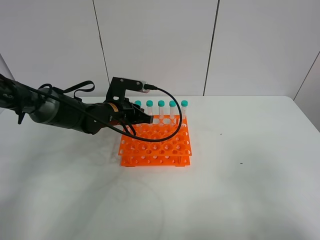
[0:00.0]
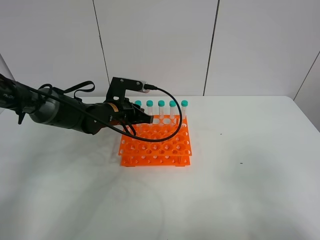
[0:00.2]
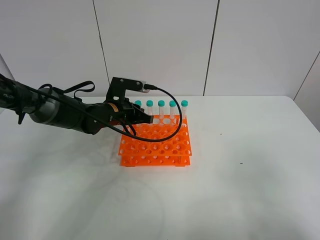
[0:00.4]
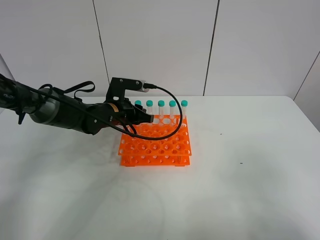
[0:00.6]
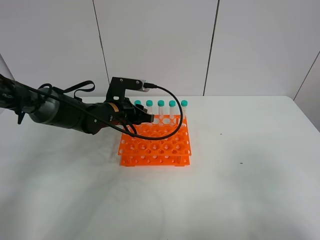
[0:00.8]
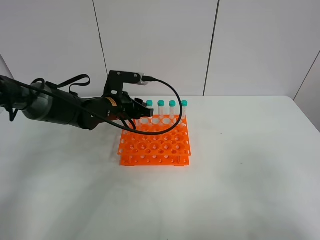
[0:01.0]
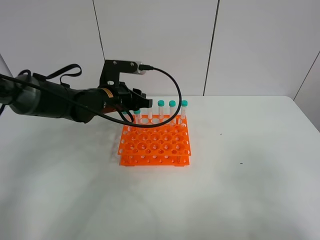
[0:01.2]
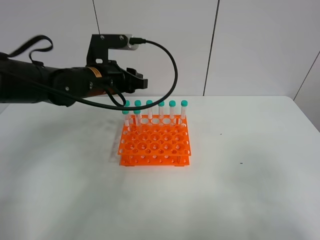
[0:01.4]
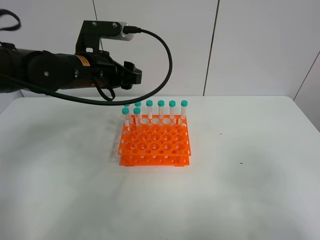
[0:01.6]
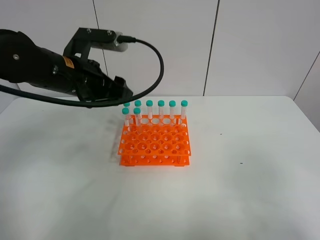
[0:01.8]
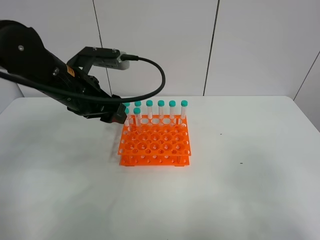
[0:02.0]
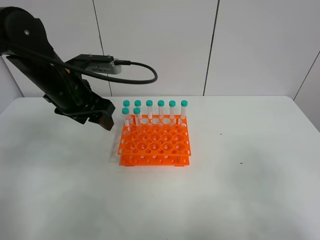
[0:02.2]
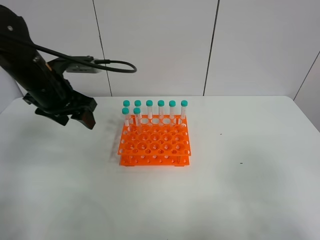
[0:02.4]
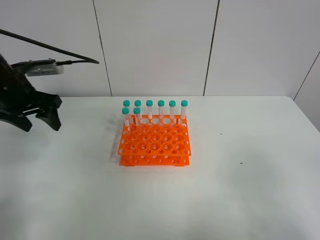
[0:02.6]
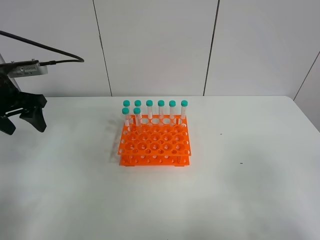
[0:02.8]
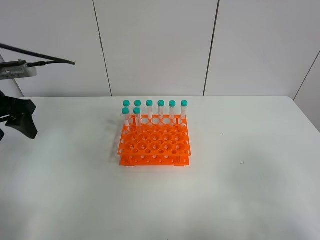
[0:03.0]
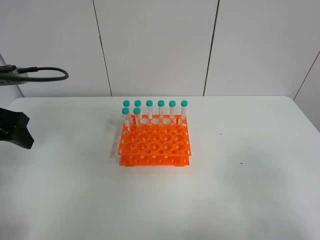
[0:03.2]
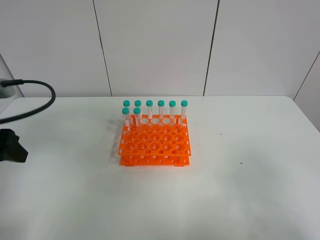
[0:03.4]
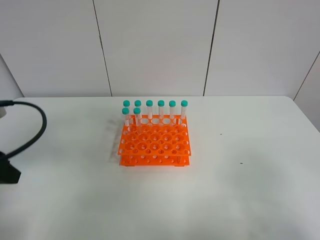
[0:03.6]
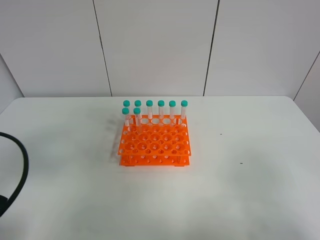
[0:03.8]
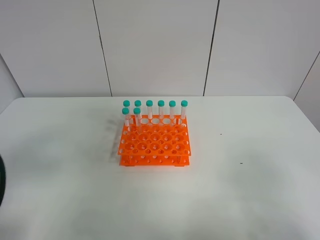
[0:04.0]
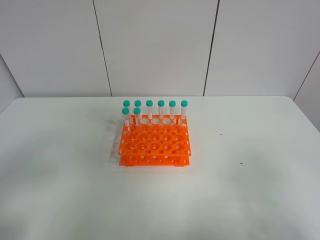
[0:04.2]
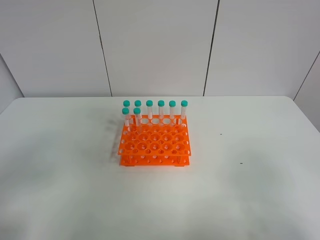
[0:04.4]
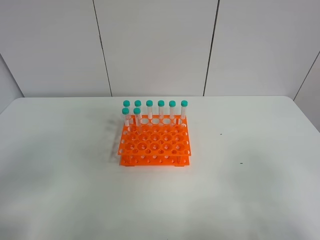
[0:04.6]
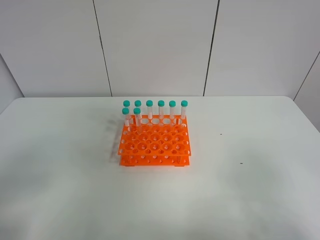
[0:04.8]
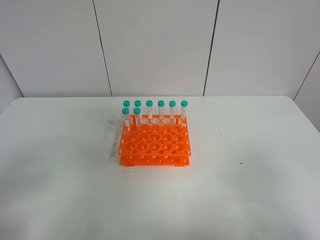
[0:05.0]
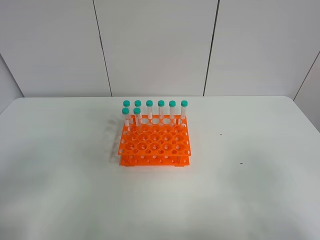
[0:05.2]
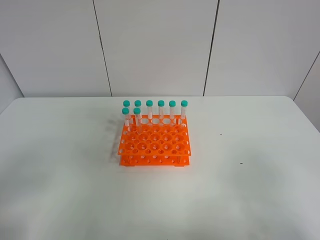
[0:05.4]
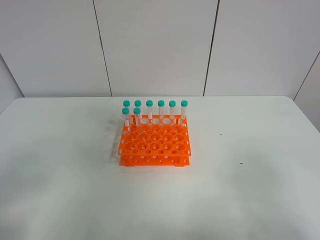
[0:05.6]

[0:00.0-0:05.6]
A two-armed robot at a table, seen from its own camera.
Task of the whole recording: Put the test tube on the table back onto the test tube rack.
0.0 to 1.4 s: The left gripper heads upward, covering some 10 cm, and opens its fingers.
1.4 to 2.8 s: The left gripper is displaced to the left by about 20 cm, and opens its fingers.
2.8 to 4.2 s: The left gripper heads backward, covering some 25 cm.

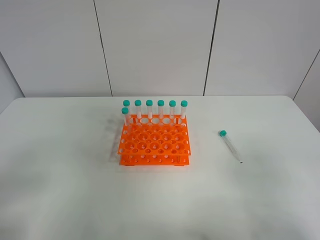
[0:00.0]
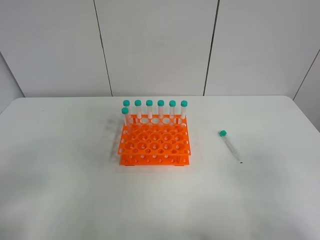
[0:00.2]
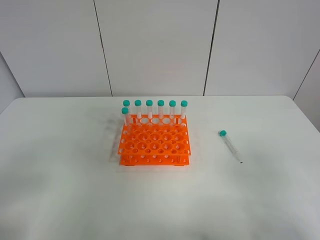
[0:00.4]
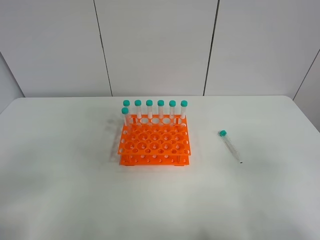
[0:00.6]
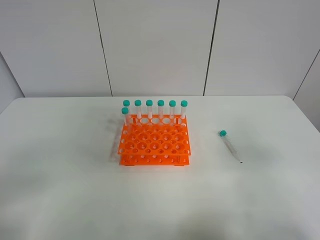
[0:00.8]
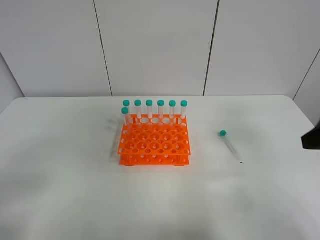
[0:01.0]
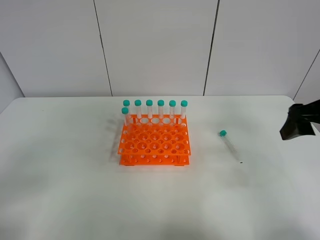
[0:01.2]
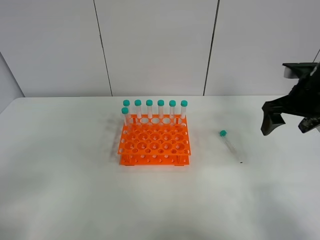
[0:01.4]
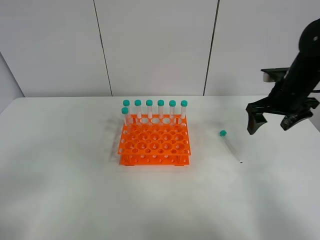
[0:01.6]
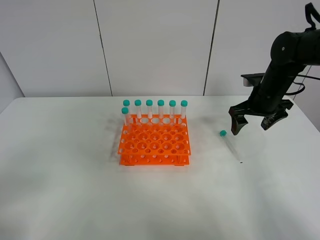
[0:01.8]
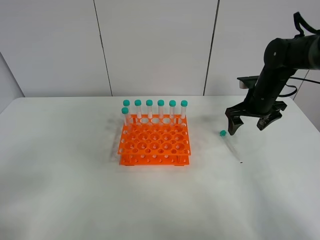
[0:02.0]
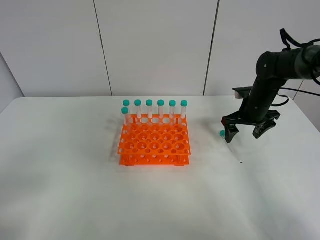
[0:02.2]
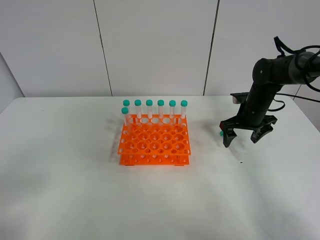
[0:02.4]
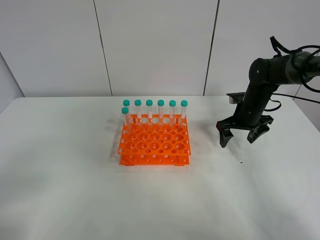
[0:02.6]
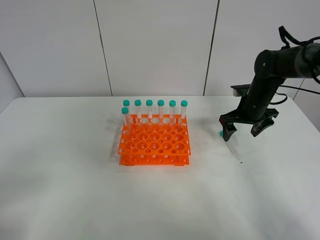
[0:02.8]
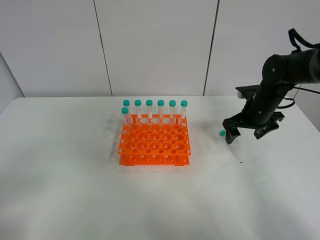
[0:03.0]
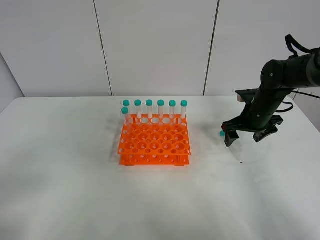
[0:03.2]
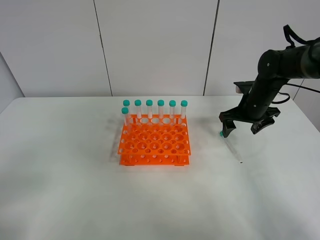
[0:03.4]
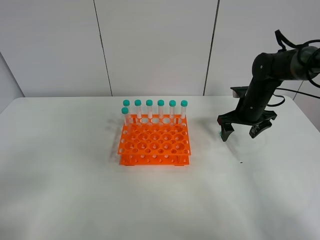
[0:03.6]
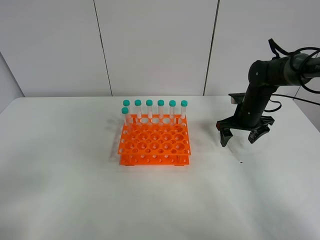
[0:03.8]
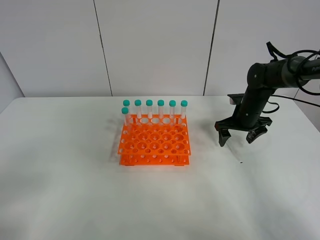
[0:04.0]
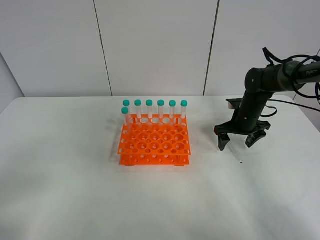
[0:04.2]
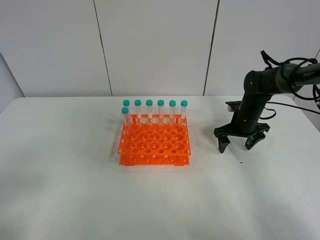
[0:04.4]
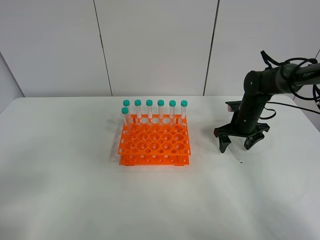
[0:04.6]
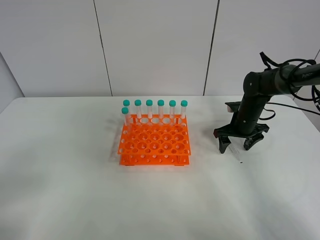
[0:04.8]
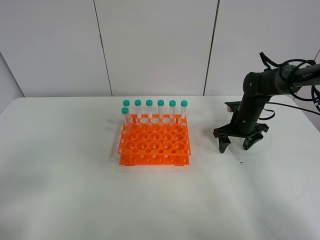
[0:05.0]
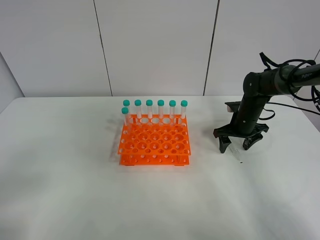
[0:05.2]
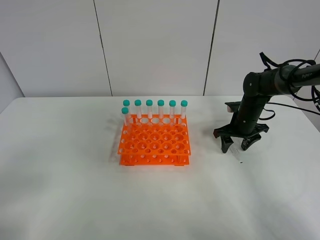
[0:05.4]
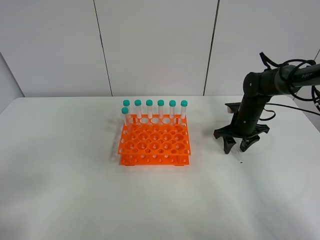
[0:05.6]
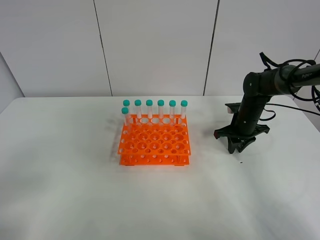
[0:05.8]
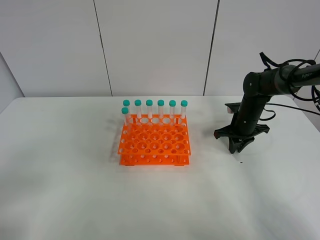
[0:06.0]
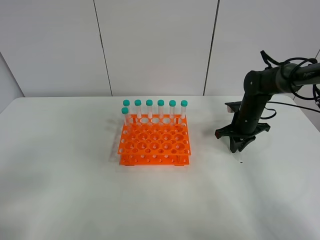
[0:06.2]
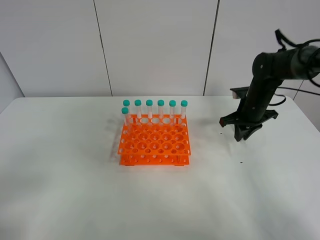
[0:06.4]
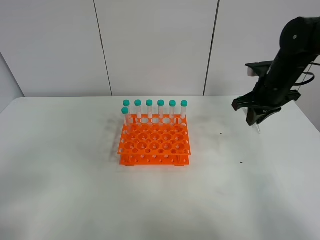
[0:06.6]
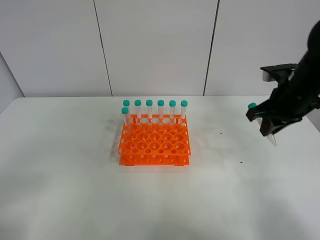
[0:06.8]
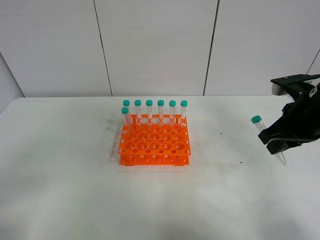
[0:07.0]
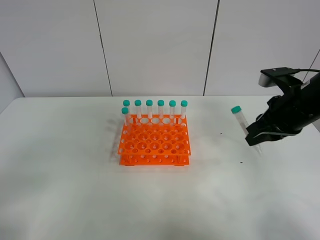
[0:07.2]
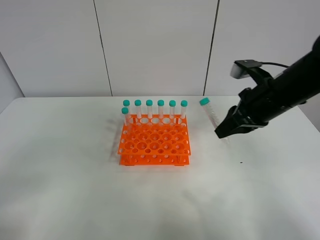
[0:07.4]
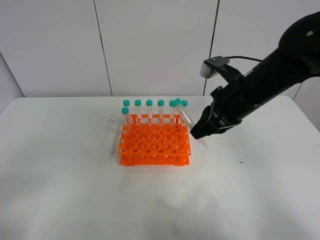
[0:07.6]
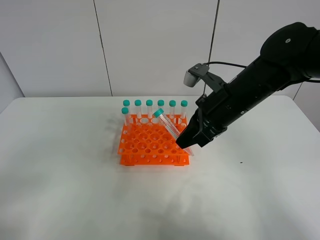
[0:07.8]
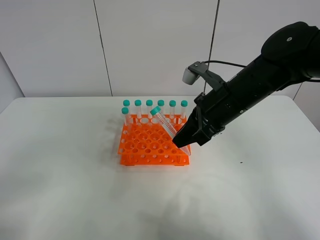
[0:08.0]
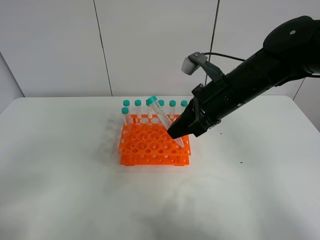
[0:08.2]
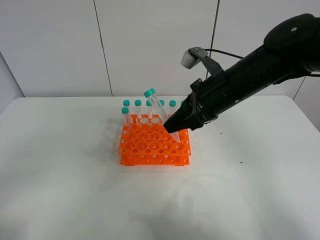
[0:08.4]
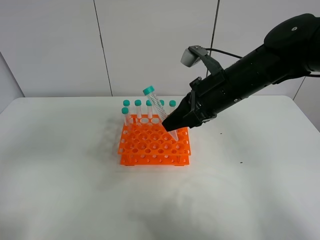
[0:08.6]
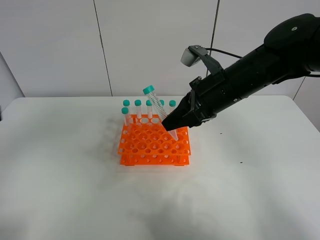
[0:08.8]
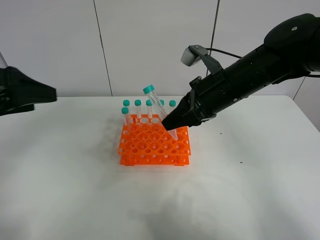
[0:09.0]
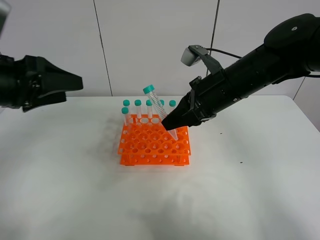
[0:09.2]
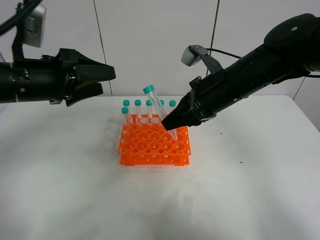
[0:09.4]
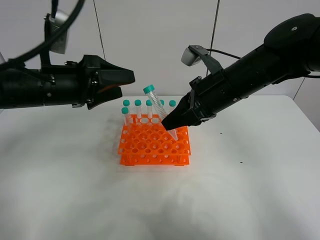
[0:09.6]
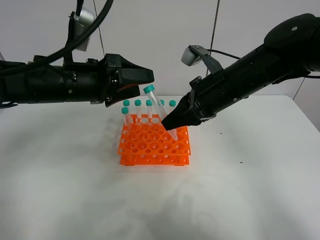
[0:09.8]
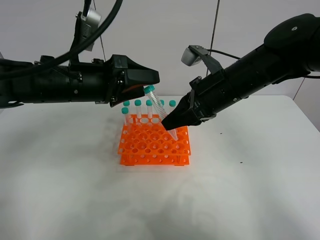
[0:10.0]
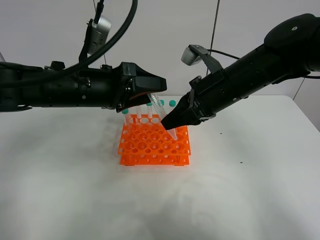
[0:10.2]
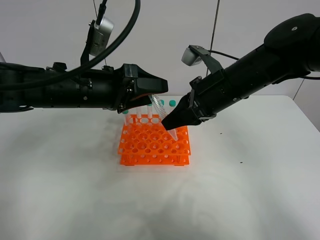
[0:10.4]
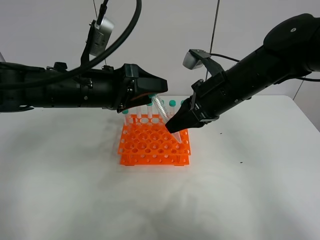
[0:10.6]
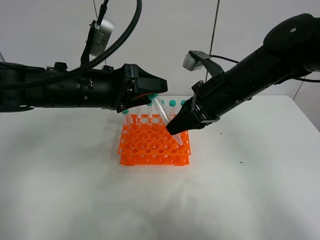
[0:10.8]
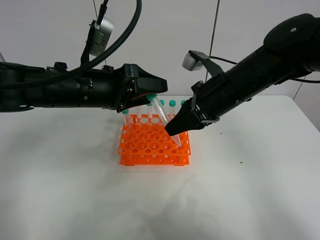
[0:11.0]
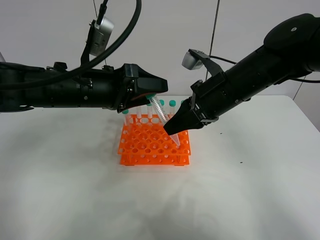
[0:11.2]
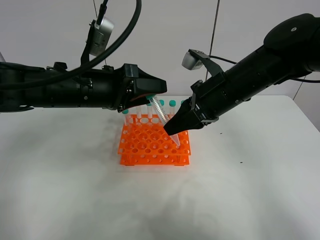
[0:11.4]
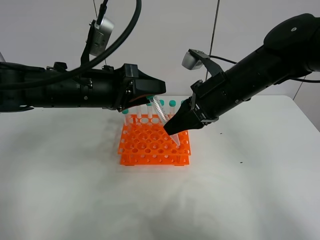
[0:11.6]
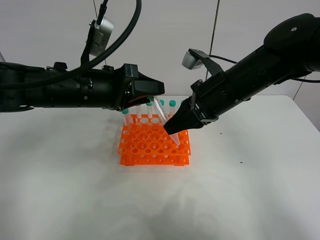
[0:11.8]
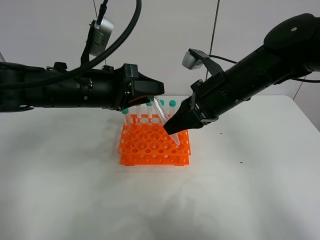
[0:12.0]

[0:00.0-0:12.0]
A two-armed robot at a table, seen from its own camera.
Task of the whole recording: Put the test tube on the table back onto the test tube rack.
Step, 0.0 to 5.8 s: Pick up the test tube with the right gripper.
0.0 to 1.6 s: The right gripper shifts roughly 35 cm forward.
1.6 to 3.0 s: The right gripper shifts about 5 cm downward.
3.0 to 4.4 s: The right gripper is displaced downward by roughly 5 cm.
4.4 to 6.0 s: The right gripper closes up.
6.0 to 7.6 s: The right gripper goes some 25 cm upward, backward and to the left.
7.6 to 9.0 s: The left gripper heads forward, covering some 20 cm.
9.0 to 10.4 s: The left gripper is displaced to the right, forward and downward by roughly 20 cm.
10.4 to 12.0 s: The left gripper closes up.

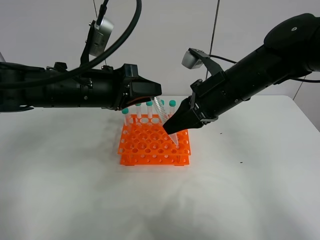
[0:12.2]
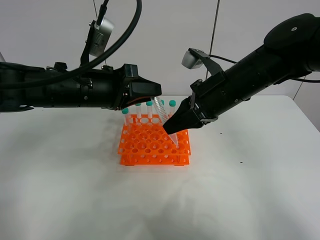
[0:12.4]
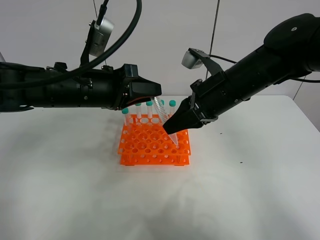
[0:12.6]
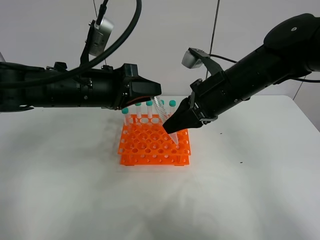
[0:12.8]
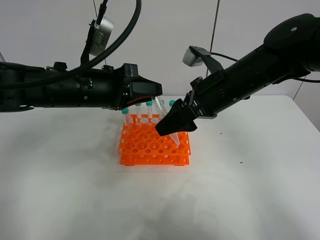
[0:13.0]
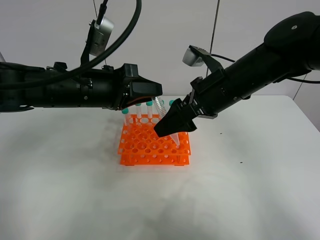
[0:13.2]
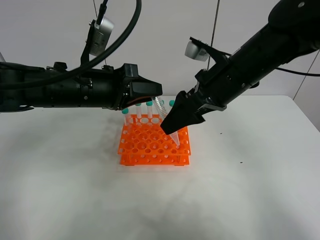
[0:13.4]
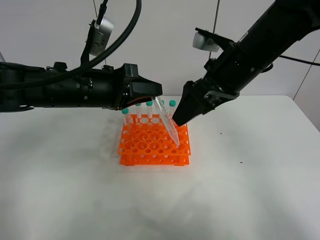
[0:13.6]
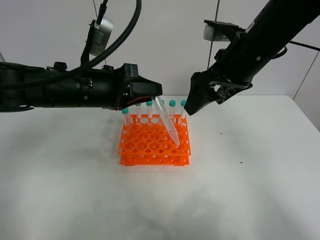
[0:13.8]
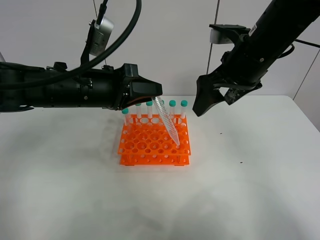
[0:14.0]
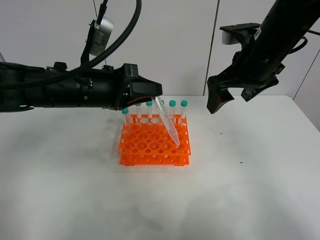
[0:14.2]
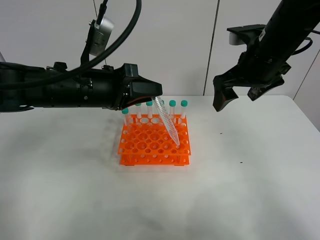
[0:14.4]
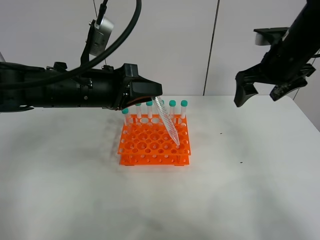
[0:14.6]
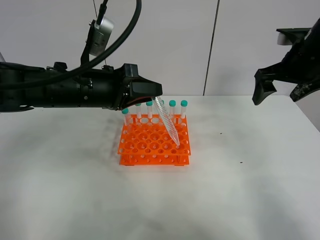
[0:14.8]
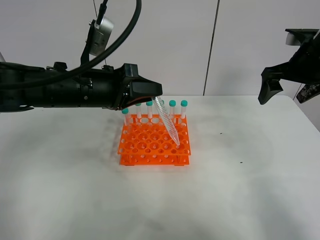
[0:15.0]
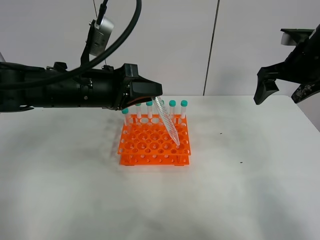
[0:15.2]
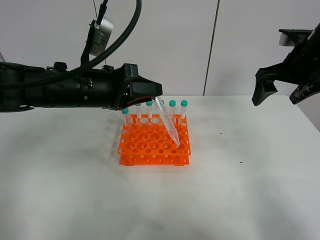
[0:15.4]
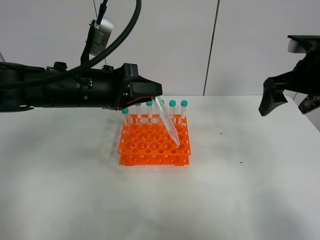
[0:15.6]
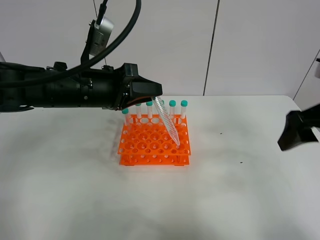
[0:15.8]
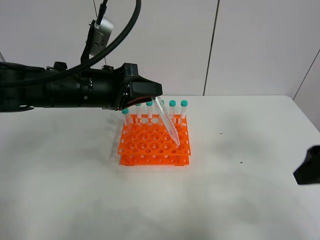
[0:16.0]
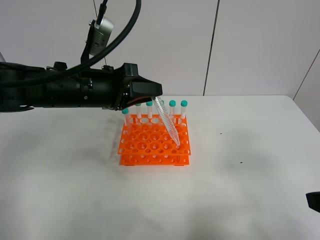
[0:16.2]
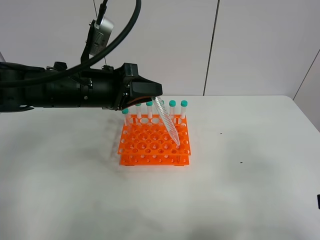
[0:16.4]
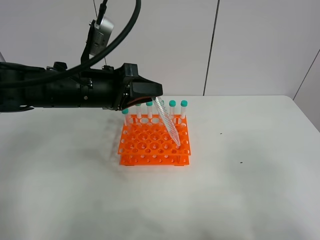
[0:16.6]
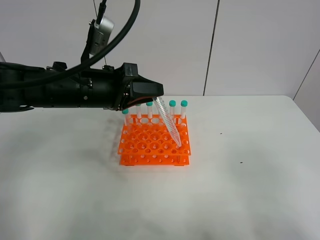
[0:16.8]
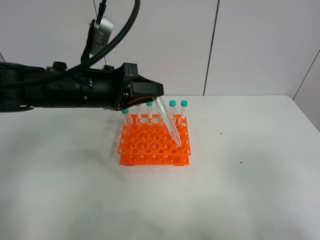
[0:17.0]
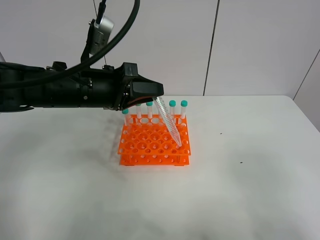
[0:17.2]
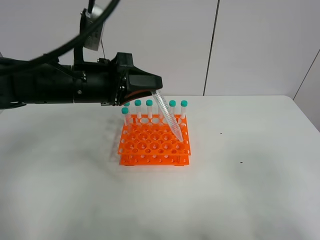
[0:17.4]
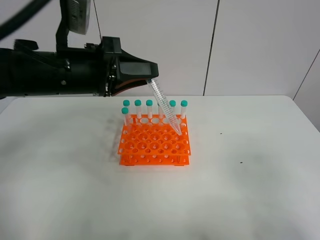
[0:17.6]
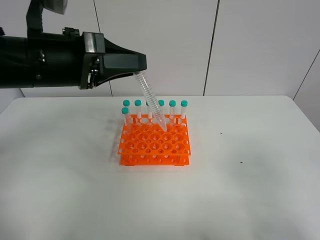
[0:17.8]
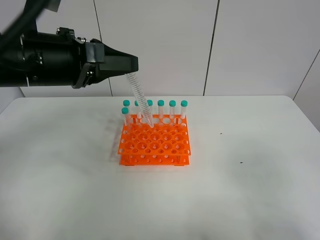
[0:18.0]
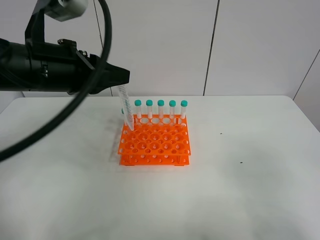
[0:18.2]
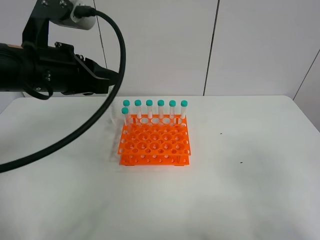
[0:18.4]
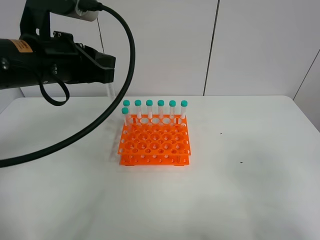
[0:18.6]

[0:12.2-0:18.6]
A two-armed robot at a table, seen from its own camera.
Task of the whole recording: Put the test tube on the table back onto the test tube rack.
12.2 to 13.8 s: The right gripper shifts about 5 cm upward, and opens up.
13.8 to 15.4 s: The right gripper shifts some 15 cm to the right.
15.4 to 17.0 s: The right gripper travels backward by some 35 cm.
17.0 to 18.6 s: The left gripper is displaced upward by roughly 10 cm.
